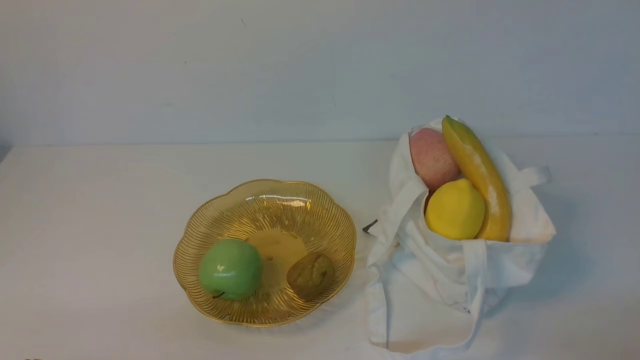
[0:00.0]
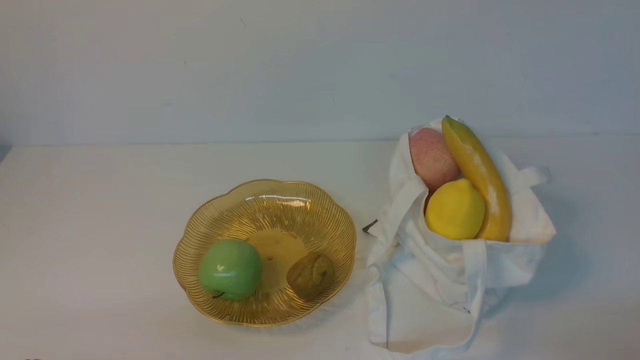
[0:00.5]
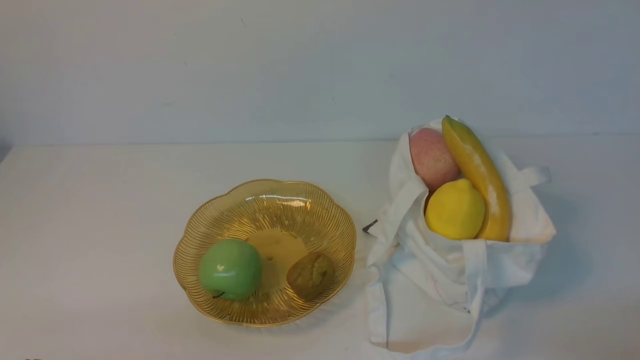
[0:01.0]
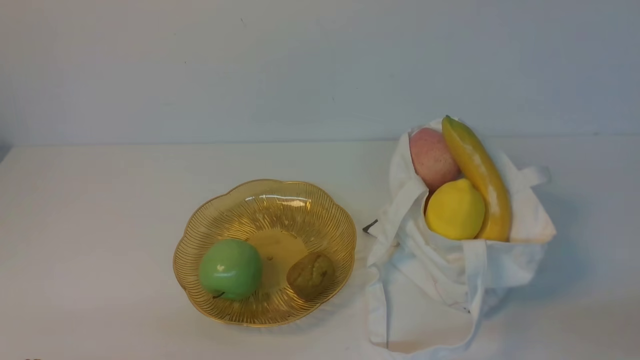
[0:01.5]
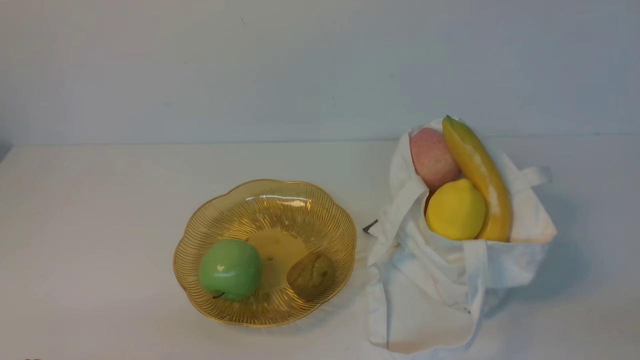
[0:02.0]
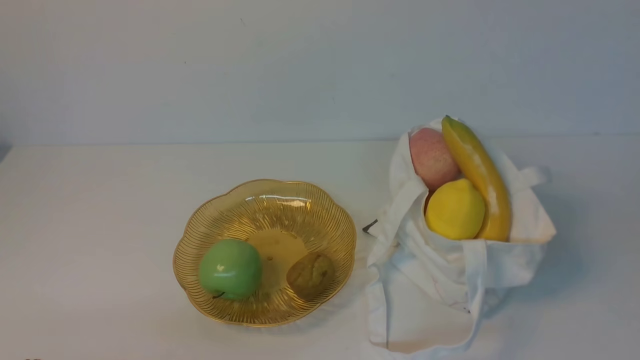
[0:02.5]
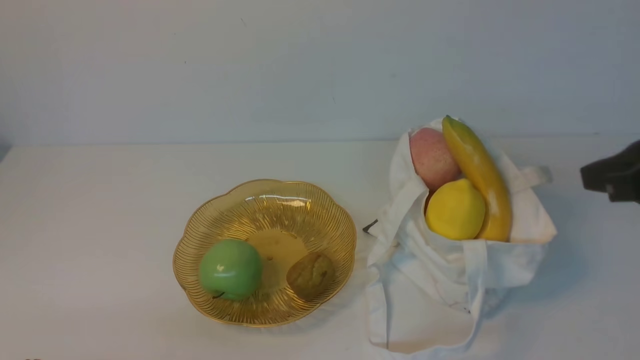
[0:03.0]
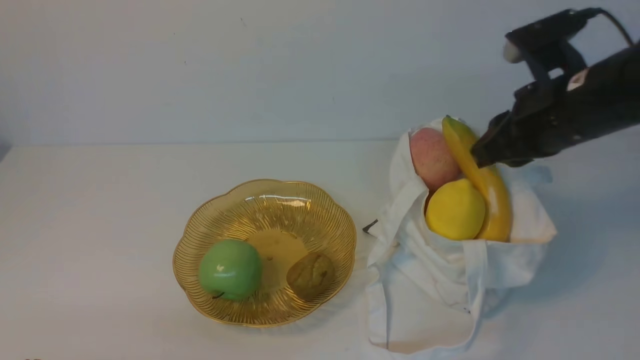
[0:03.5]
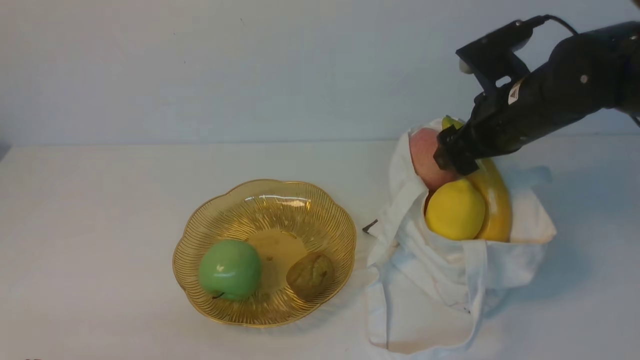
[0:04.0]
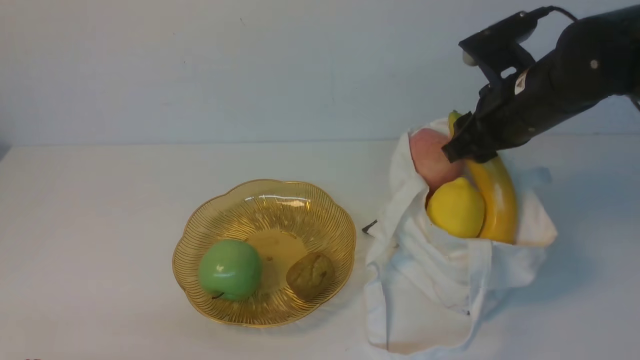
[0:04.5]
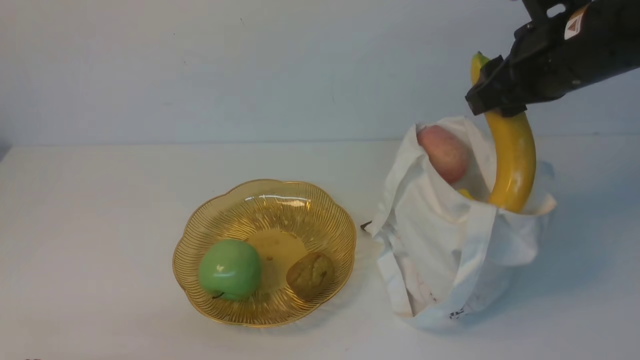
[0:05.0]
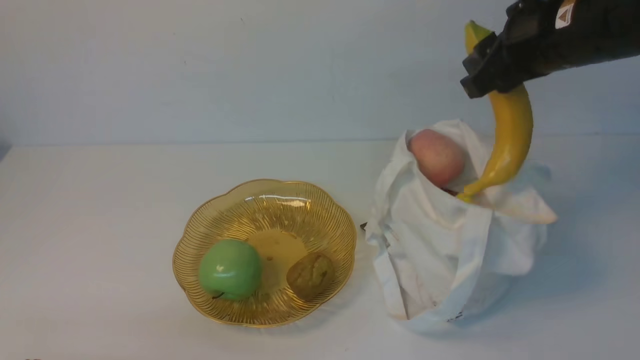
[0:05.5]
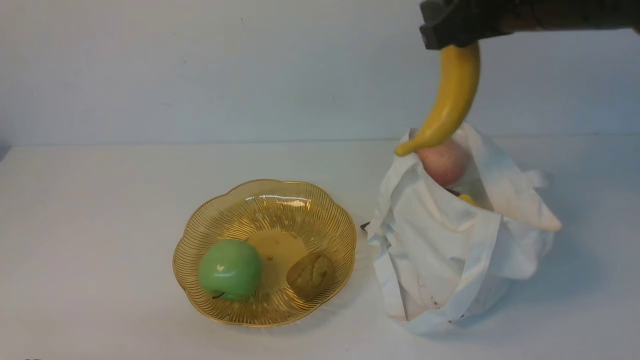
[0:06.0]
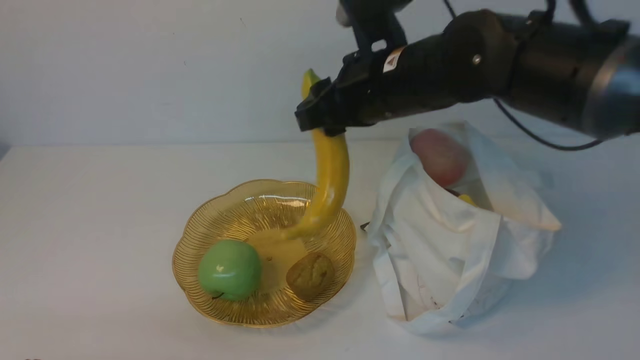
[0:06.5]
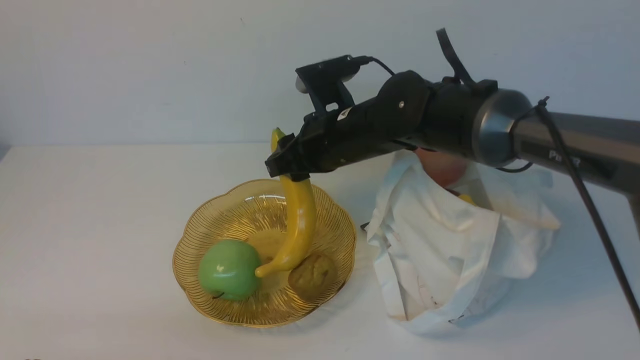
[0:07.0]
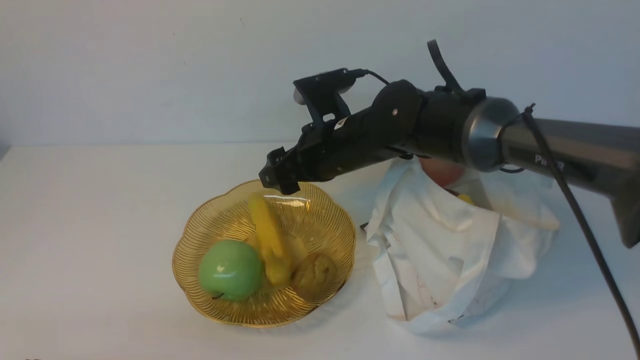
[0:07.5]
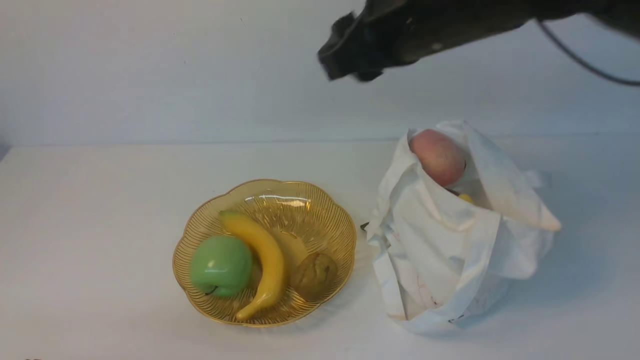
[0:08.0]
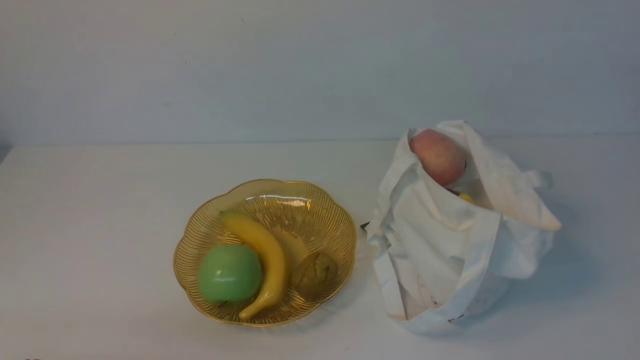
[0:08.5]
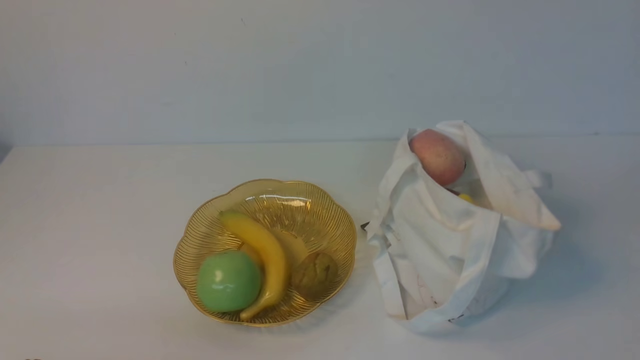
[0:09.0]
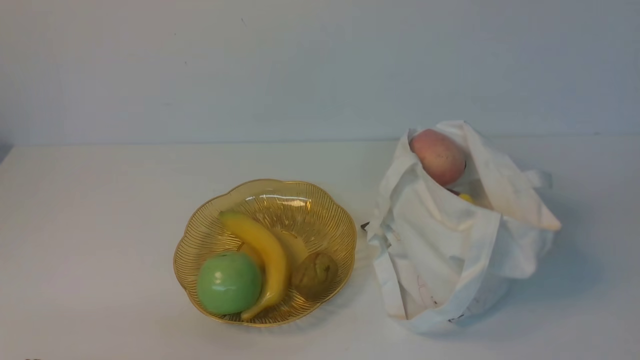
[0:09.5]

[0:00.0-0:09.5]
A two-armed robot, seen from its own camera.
Step, 0:00.0 to 0:04.5: use the right arm to grab a banana from the bag.
Step, 0:05.0 to 0:07.5: use the right arm to put the banana into the empty plate on the right.
0:02.0 to 0:04.0: The right gripper travels forward by approximately 30 cm, and opens.
0:04.0 to 0:05.5: The right gripper heads upward, covering about 10 cm, and closes its fingers.
0:05.5 to 0:07.5: The right gripper is displaced to the left and downward by roughly 20 cm, and opens.
0:07.5 to 0:09.5: The right gripper travels backward and to the right by approximately 50 cm, and closes up.

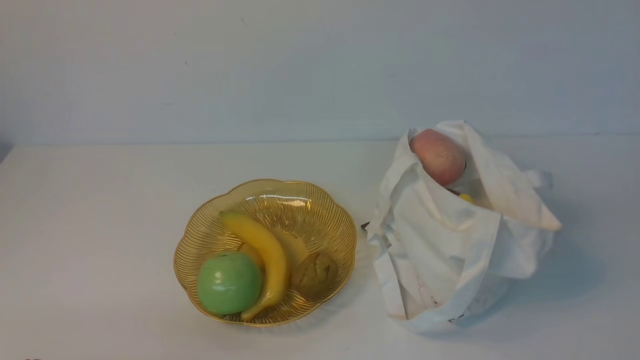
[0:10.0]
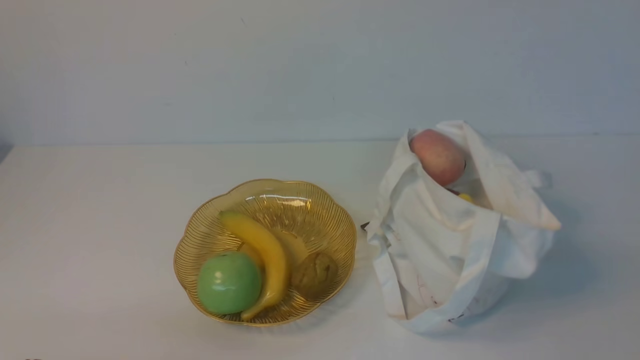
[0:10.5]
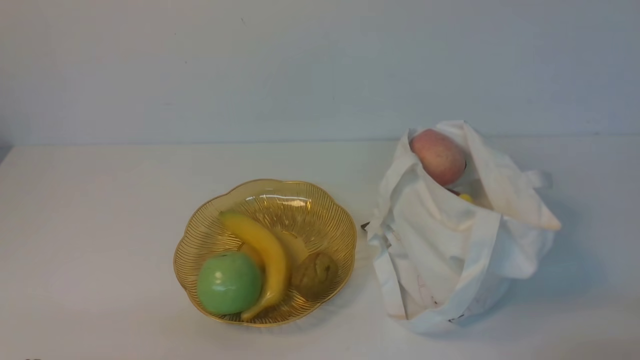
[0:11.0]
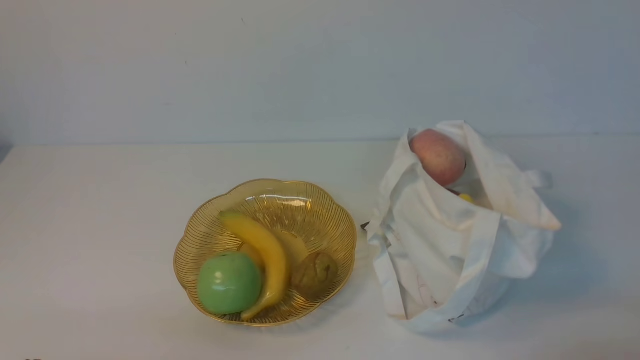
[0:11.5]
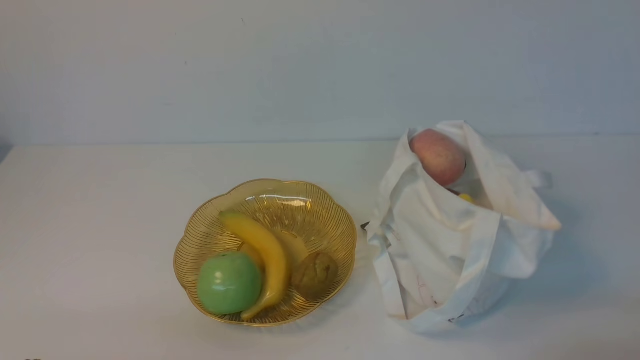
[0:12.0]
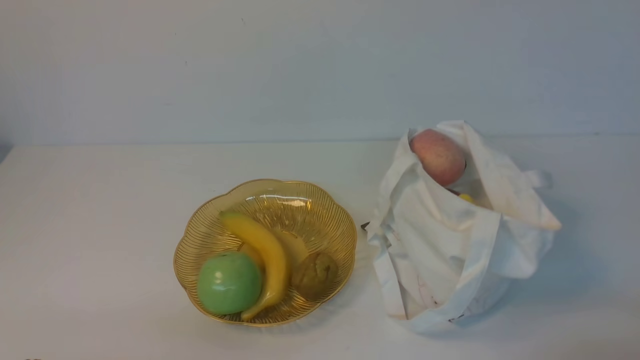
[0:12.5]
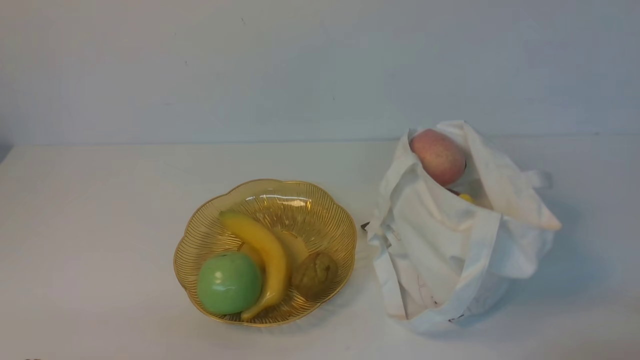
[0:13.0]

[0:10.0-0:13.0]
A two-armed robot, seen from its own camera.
0:11.5 to 0:13.0: Both grippers stay about where they are.

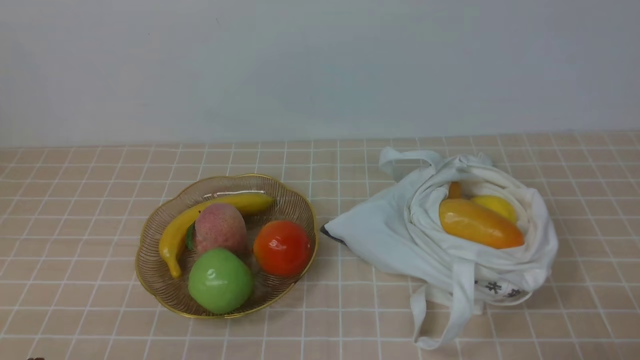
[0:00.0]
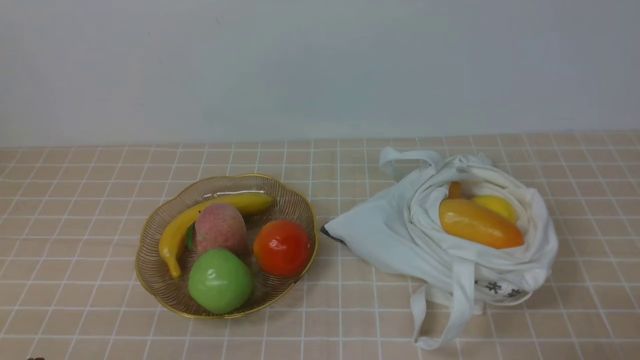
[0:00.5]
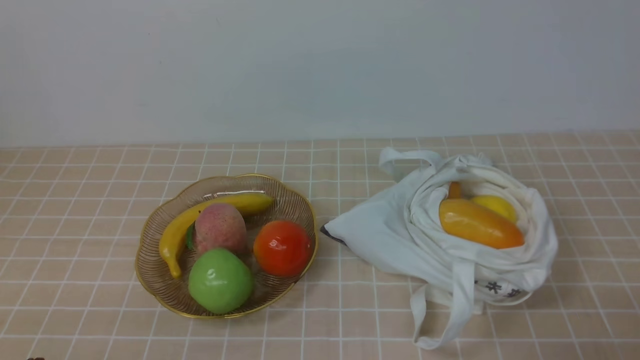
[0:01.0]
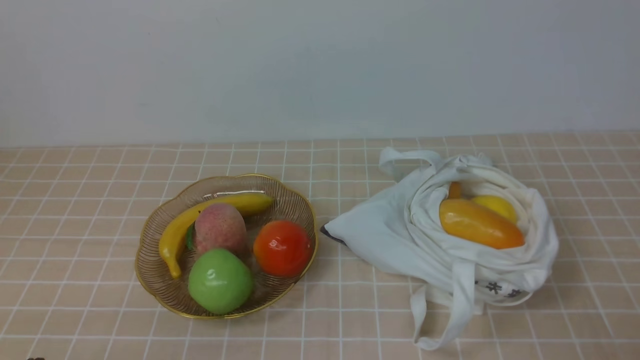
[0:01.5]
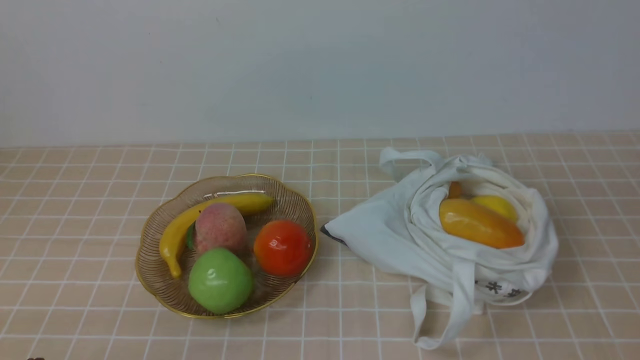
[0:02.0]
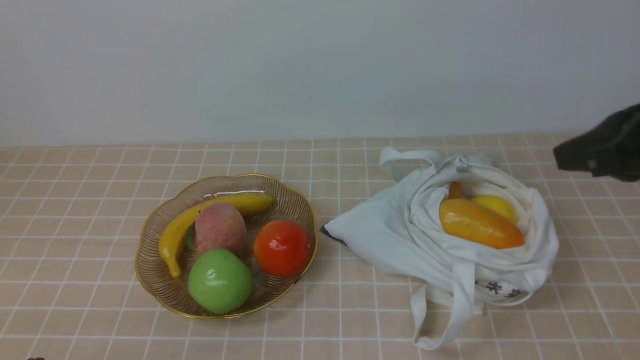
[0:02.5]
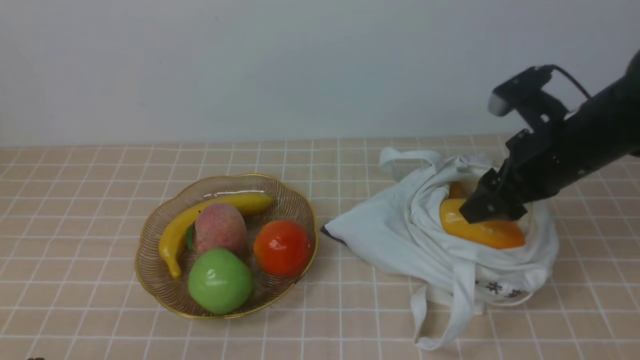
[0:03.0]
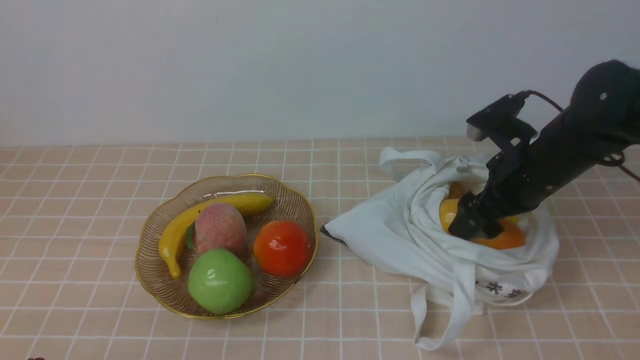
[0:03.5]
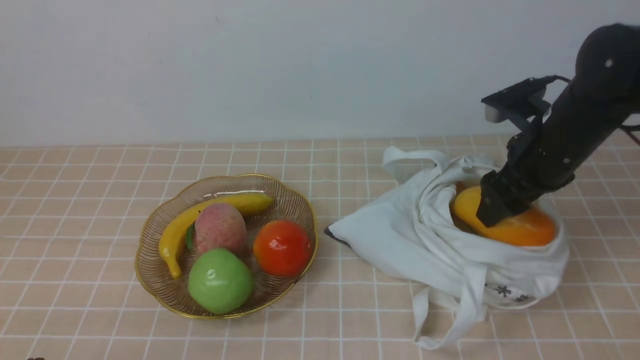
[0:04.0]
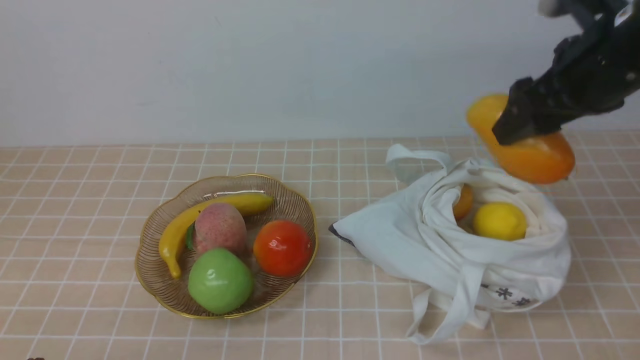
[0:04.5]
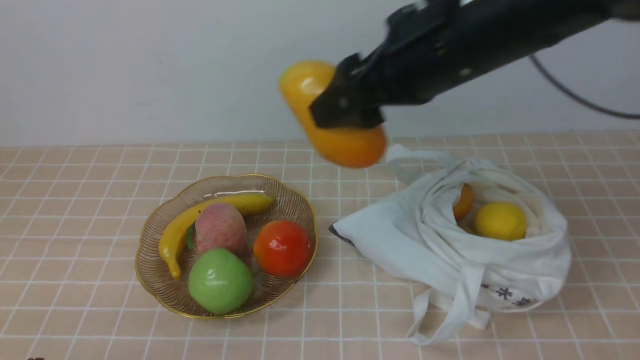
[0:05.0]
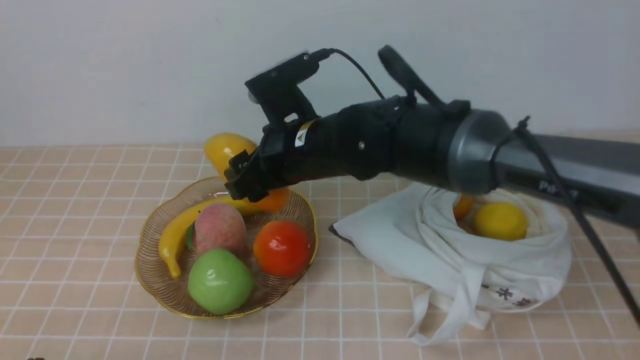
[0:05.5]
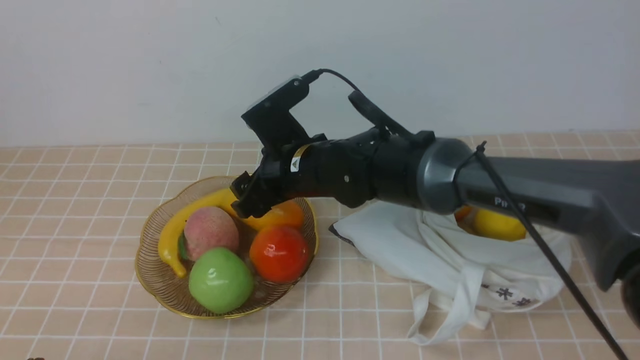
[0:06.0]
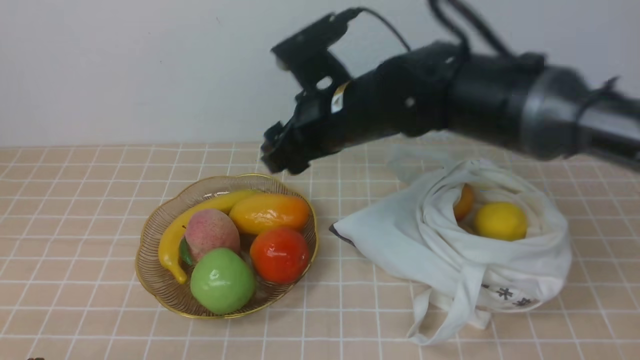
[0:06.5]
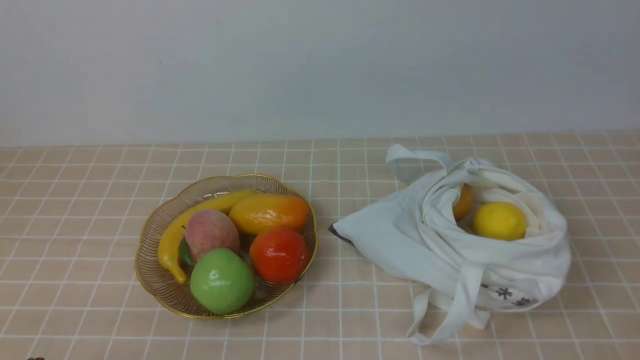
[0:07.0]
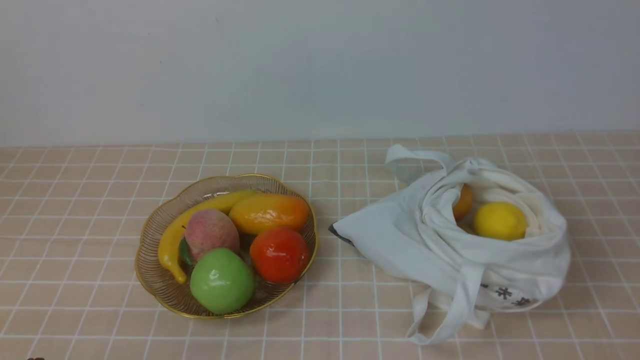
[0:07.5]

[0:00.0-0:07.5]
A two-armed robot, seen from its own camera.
Step, 0:00.0 to 0:04.0: use the right arm to grab a mango from the bag.
Step, 0:04.5 to 0:06.0: use the right arm to put the mango into the empty plate on the left.
0:02.0 to 0:04.0: The right gripper heads forward, covering roughly 30 cm, and opens.
0:04.0 to 0:05.5: The right gripper heads to the left, covering approximately 25 cm.
0:05.5 to 0:07.5: The right gripper heads backward and to the right, covering roughly 50 cm, and closes its fingers.
